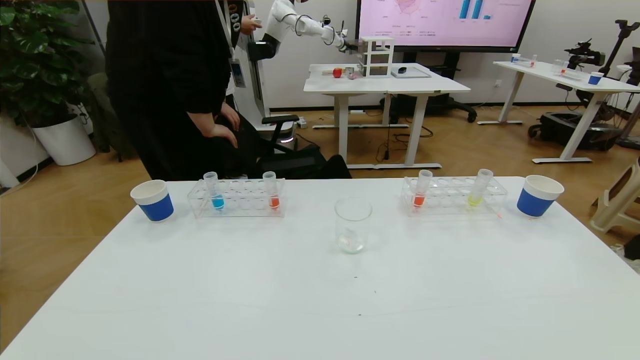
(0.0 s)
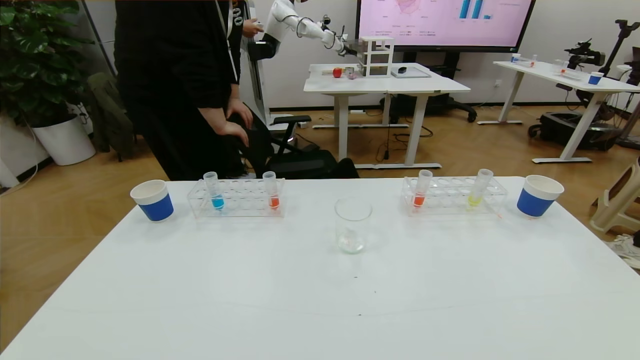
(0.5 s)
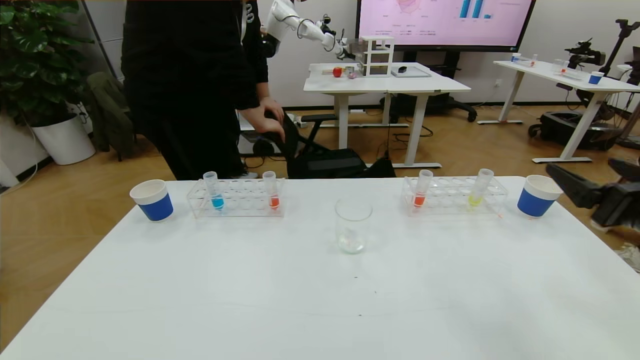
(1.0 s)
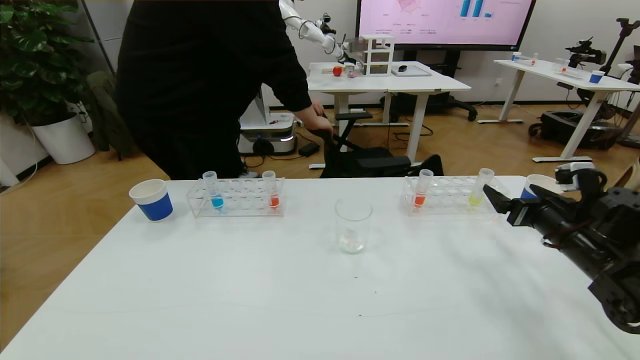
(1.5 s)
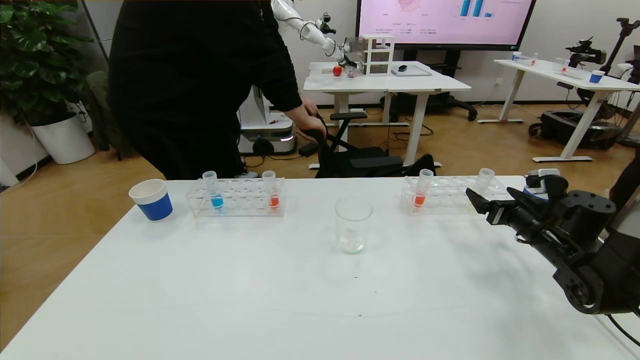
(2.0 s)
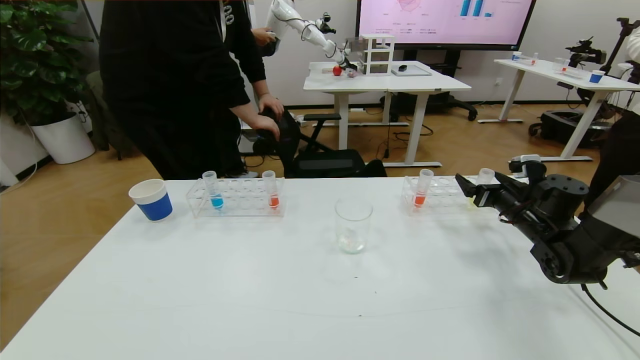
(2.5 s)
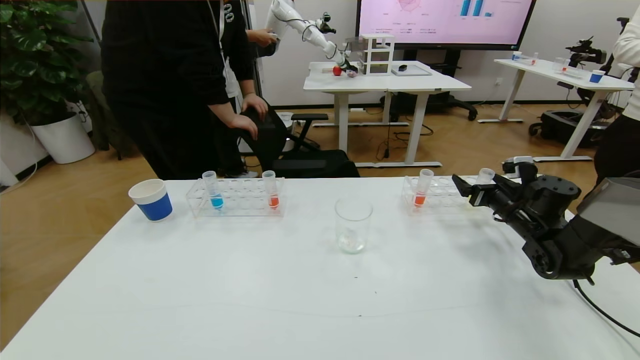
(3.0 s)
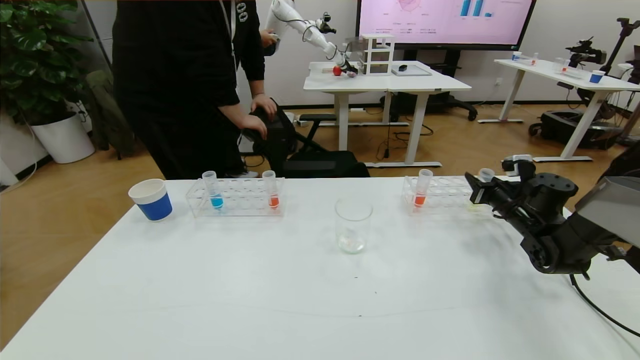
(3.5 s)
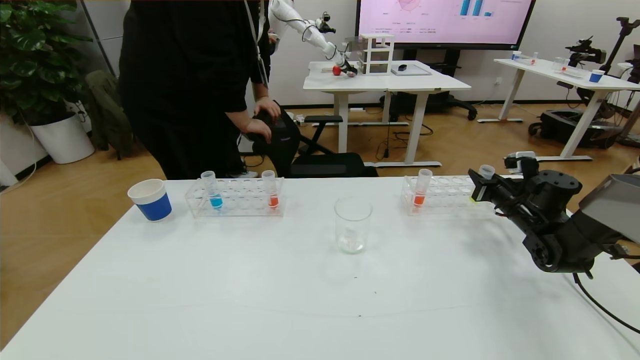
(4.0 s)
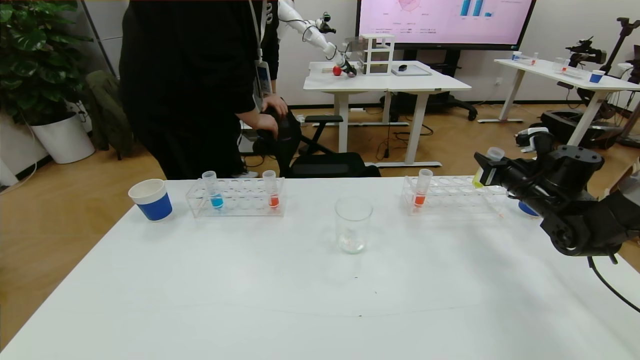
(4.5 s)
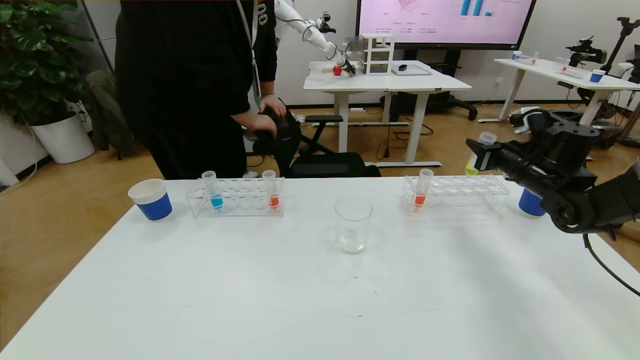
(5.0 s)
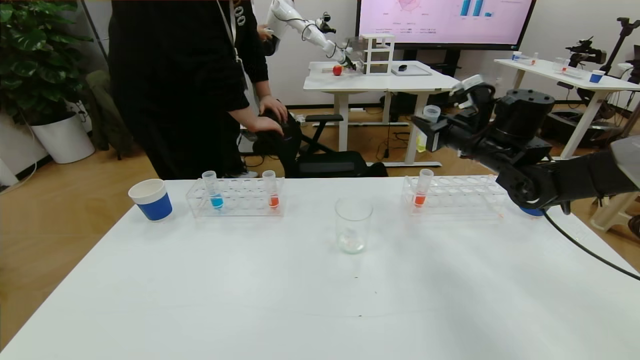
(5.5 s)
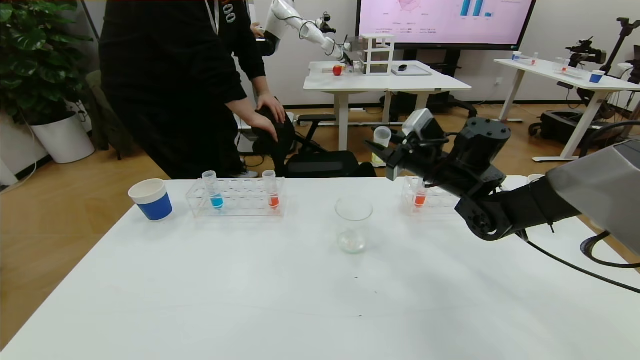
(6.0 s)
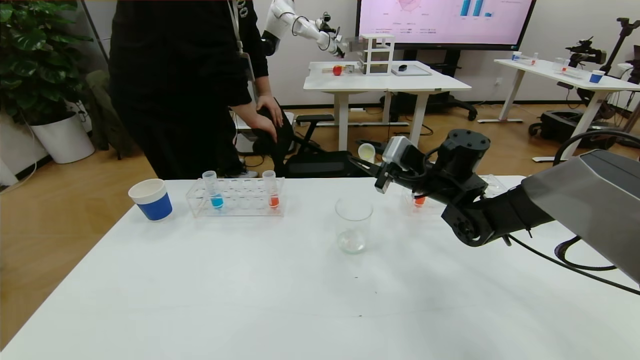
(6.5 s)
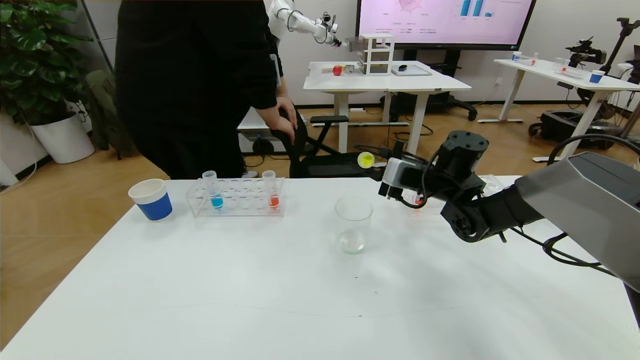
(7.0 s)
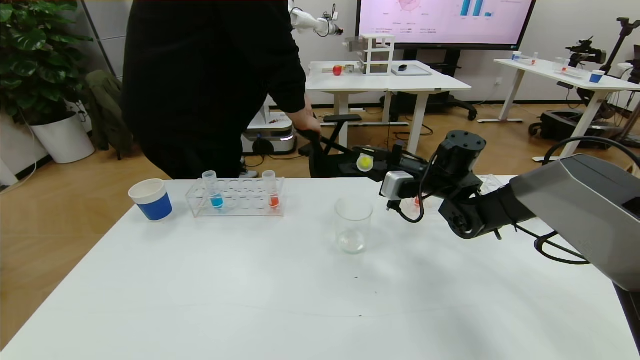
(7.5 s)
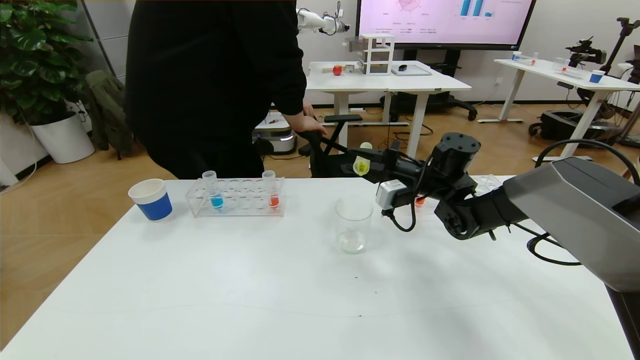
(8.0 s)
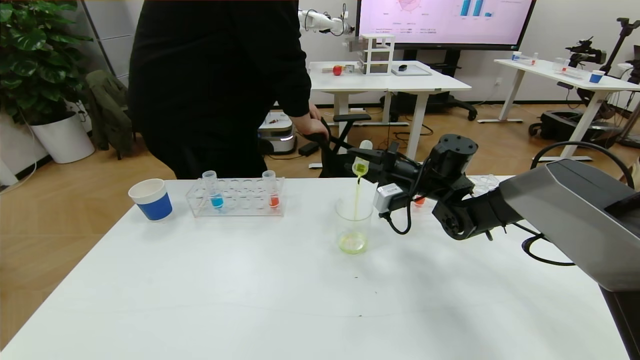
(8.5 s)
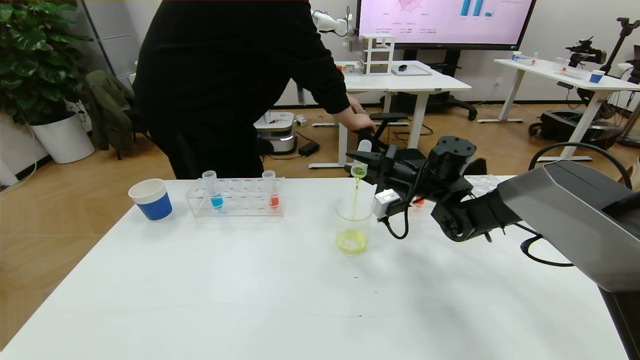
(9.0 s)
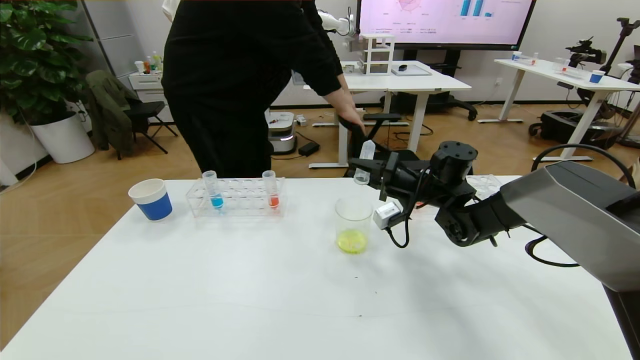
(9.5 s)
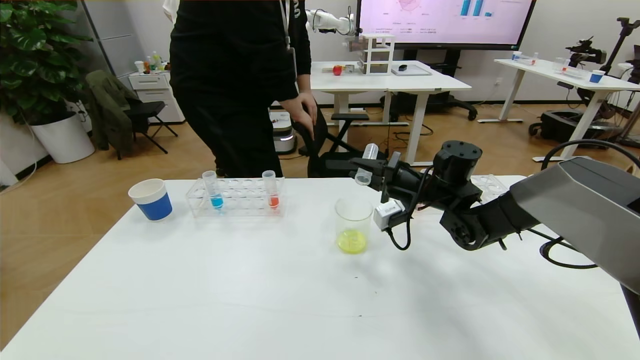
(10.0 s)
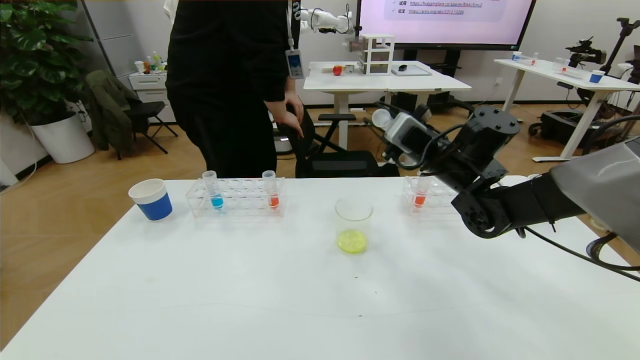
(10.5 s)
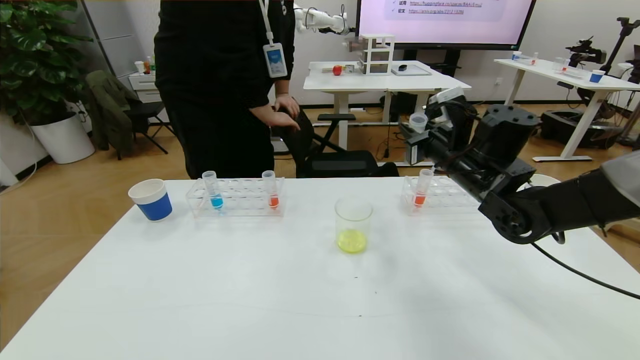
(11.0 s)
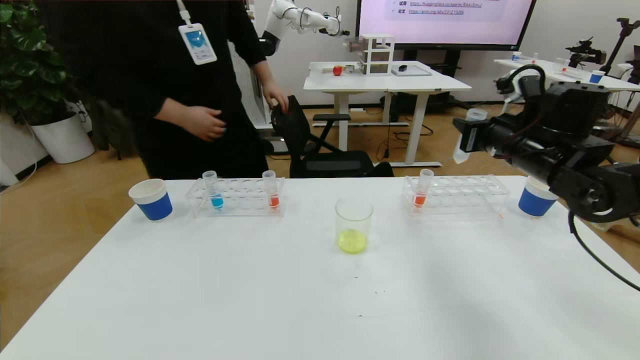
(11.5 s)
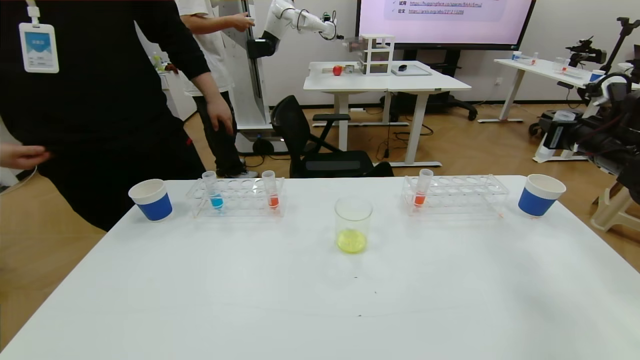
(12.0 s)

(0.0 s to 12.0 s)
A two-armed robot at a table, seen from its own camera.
Task of the whole recording: pick up the test tube with yellow pigment and the test tube with blue pigment by grippers and pour them into the beaker.
0.0 s - 2.0 s: The right gripper heads forward, covering about 40 cm.
2.0 s - 4.0 s: The right gripper is displaced forward by about 5 cm, and closes.
4.0 s - 6.0 s: The right gripper shifts about 20 cm to the left and upward.
10.0 s - 12.0 s: The right gripper moves to the right, roughly 25 cm.

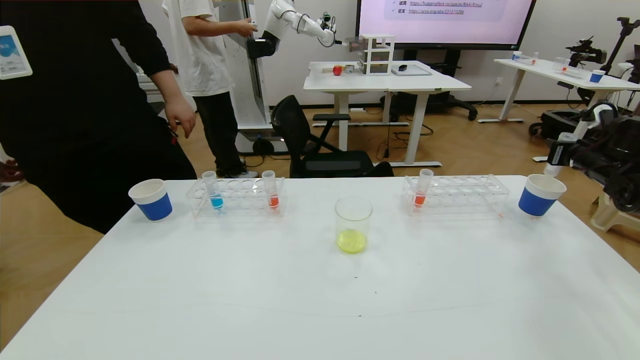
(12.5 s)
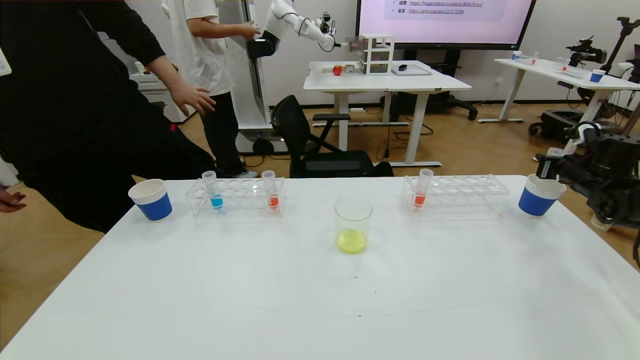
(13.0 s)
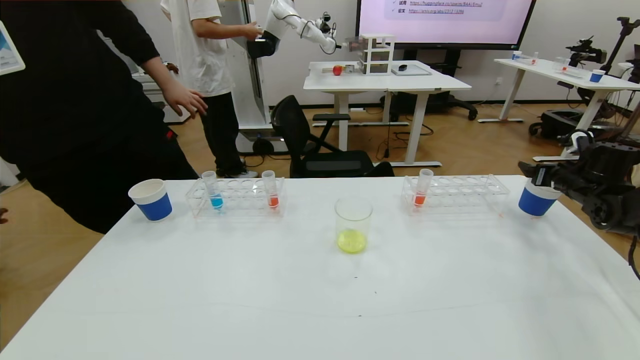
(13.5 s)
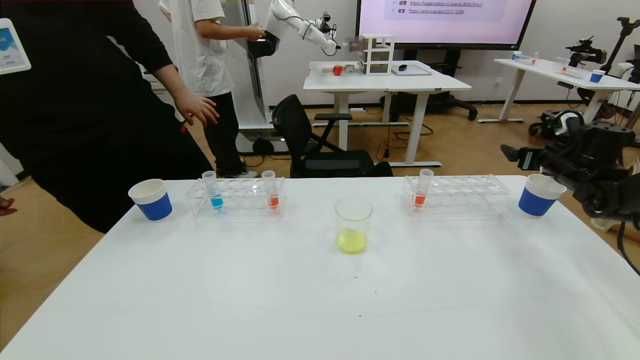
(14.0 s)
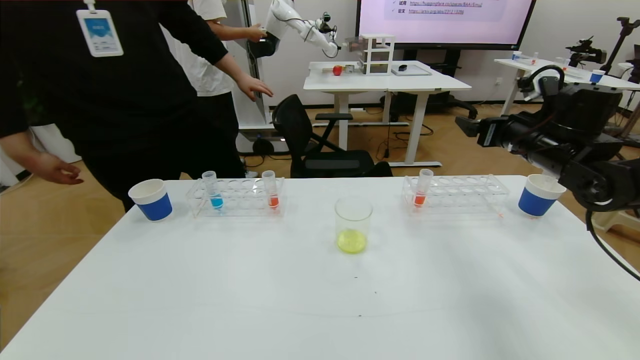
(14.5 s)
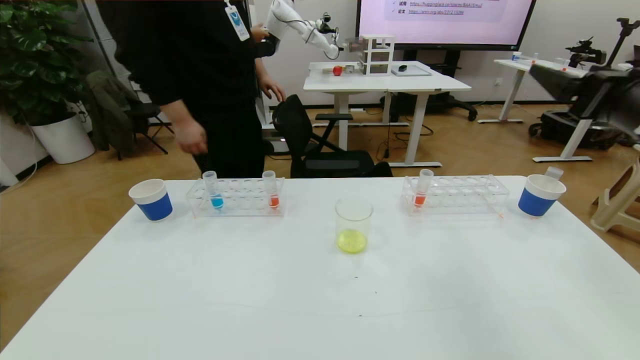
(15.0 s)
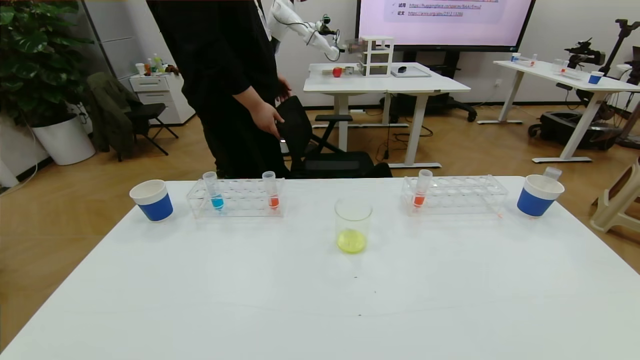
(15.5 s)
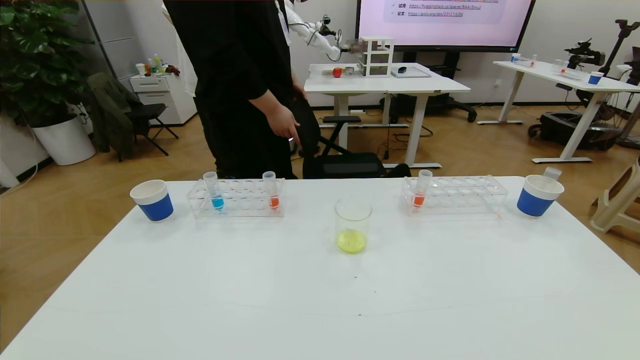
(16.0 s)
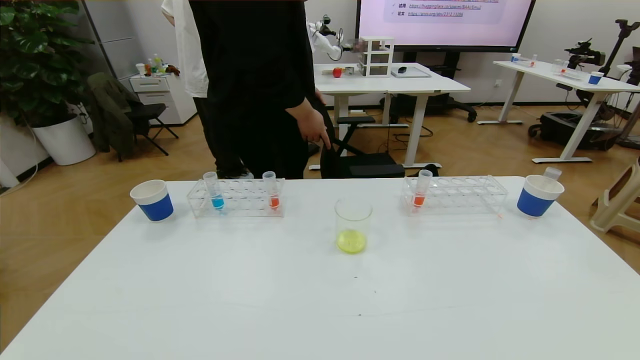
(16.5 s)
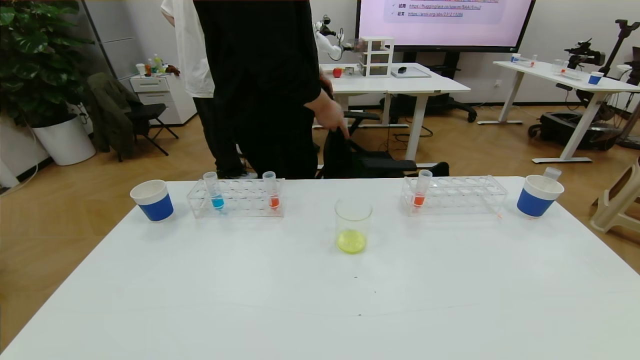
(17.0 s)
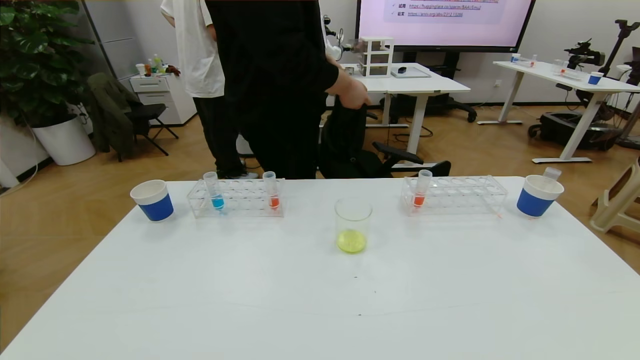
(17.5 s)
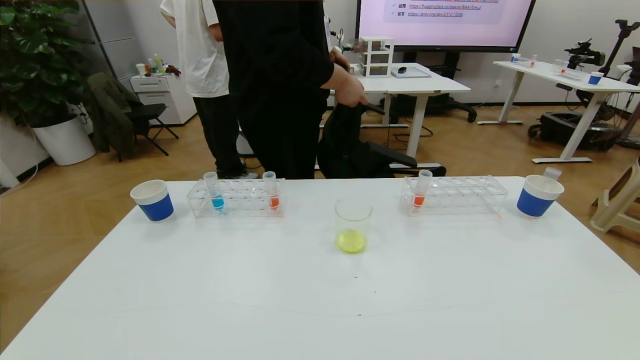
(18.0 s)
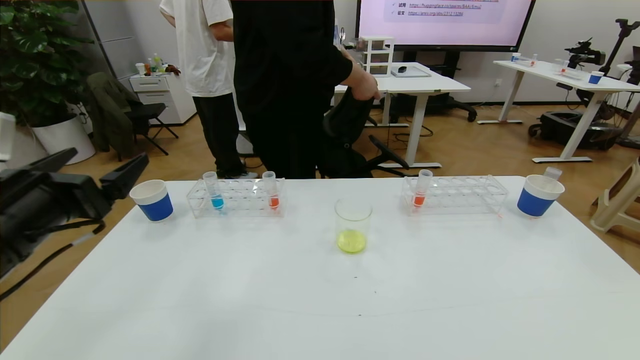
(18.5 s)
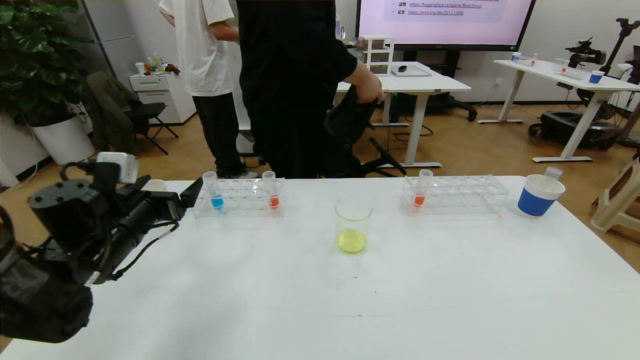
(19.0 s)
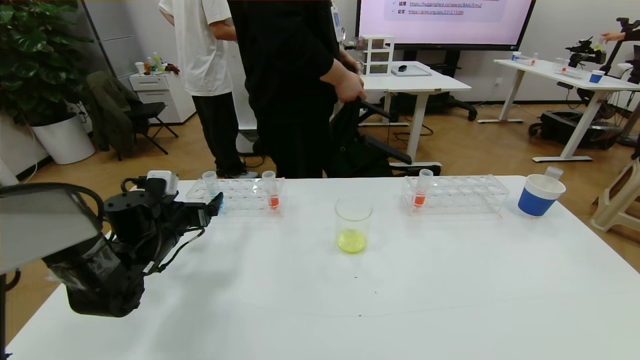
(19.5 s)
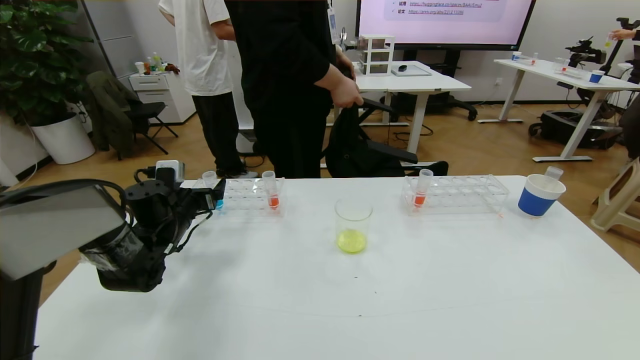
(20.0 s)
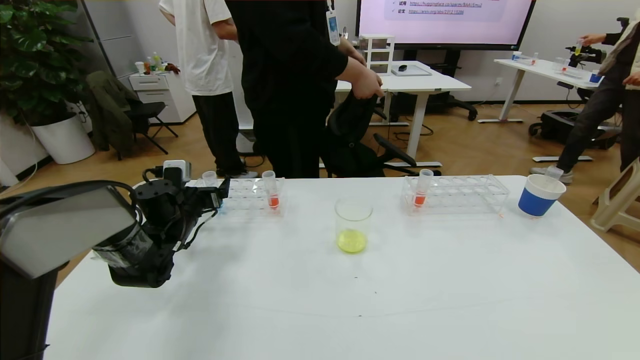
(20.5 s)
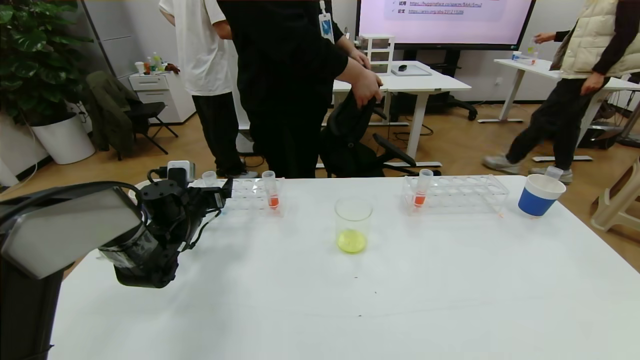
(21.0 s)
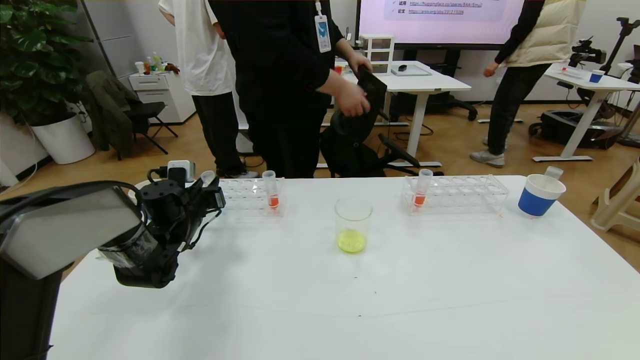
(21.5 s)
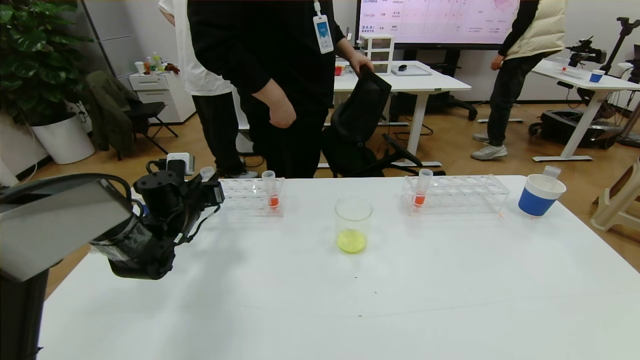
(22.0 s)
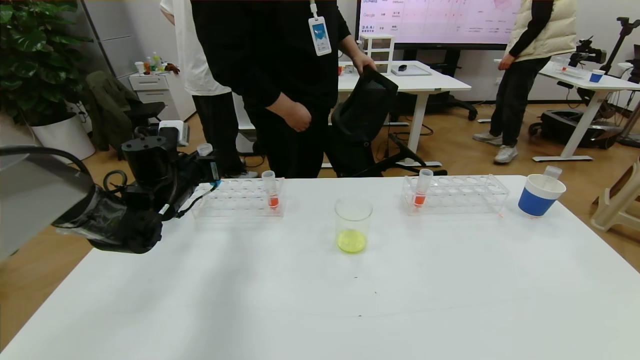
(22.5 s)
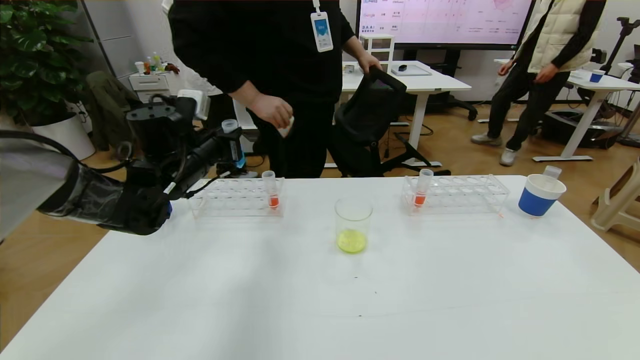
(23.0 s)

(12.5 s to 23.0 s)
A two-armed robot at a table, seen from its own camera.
Task of the whole recording: pick up the test tube with yellow pigment and the test tube with blue pigment by grippers and pour them into the beaker.
Step, 12.5 s - 17.0 s: Pour the yellow reagent into the graduated cylinder and place the test tube into the paper cup.
12.5 s - 14.5 s: The right gripper travels to the left by roughly 20 cm, and opens its fingers.
14.5 s - 16.5 s: The right gripper moves backward, some 40 cm.
16.5 s - 19.0 s: The left gripper shifts approximately 30 cm forward.
19.0 s - 21.0 s: The left gripper goes approximately 15 cm forward and downward.
21.0 s - 23.0 s: The left gripper moves upward and to the right, roughly 15 cm, and closes its fingers.
